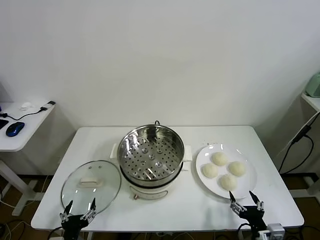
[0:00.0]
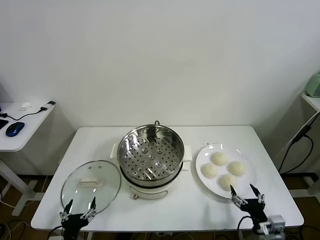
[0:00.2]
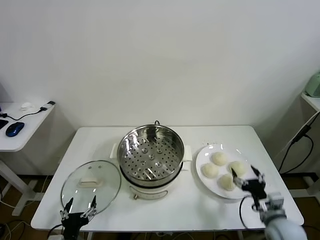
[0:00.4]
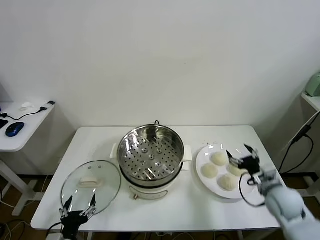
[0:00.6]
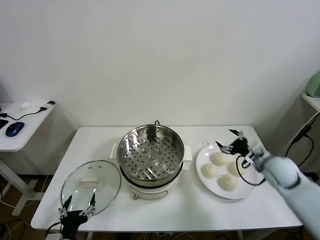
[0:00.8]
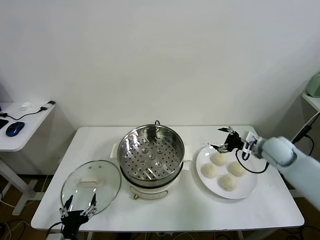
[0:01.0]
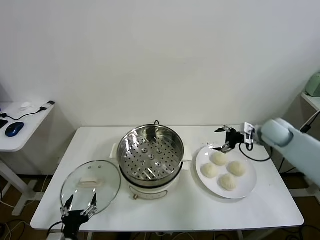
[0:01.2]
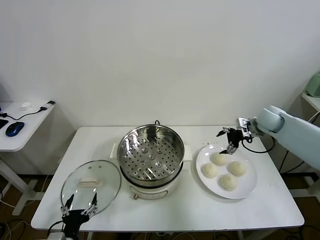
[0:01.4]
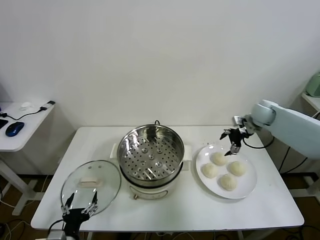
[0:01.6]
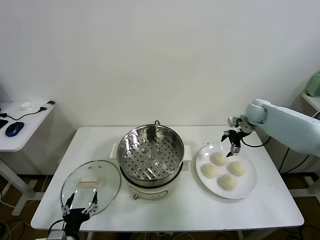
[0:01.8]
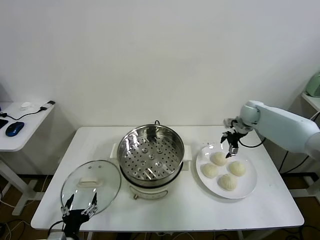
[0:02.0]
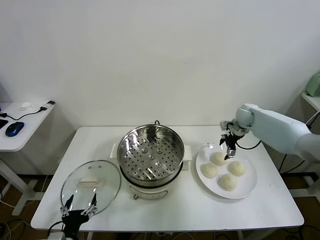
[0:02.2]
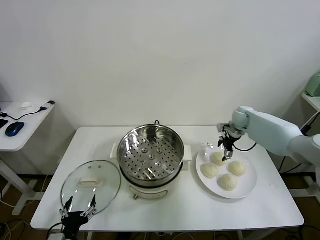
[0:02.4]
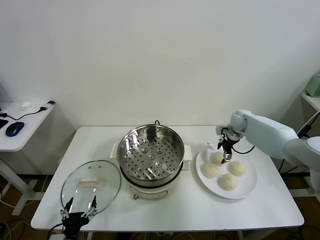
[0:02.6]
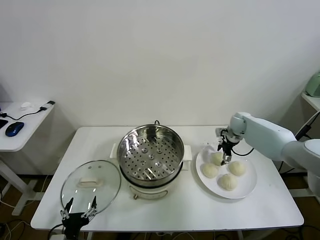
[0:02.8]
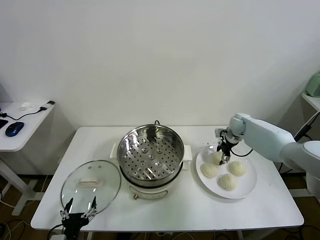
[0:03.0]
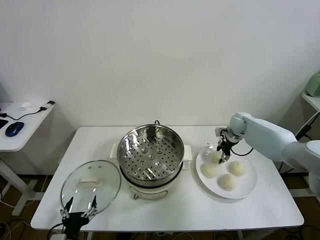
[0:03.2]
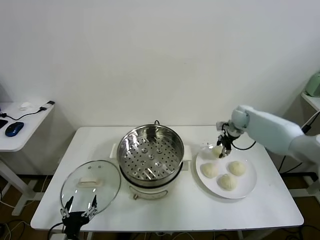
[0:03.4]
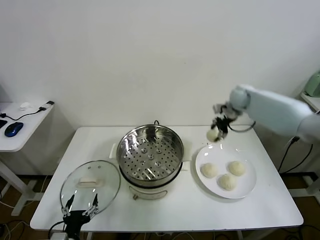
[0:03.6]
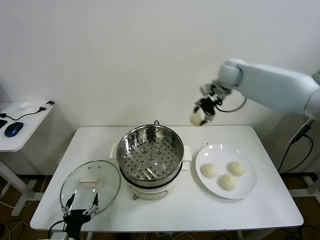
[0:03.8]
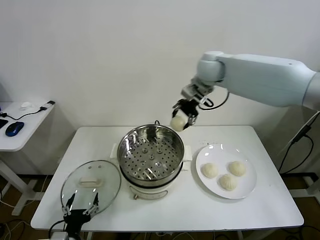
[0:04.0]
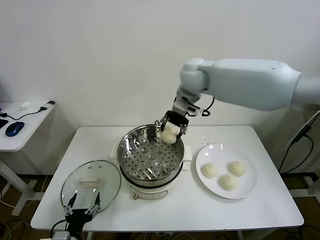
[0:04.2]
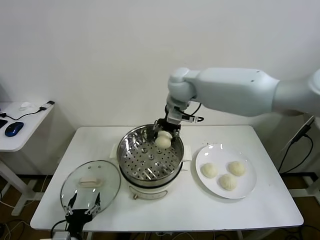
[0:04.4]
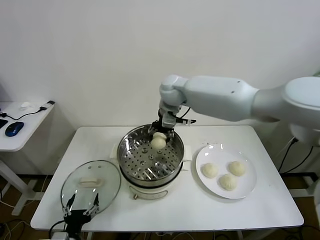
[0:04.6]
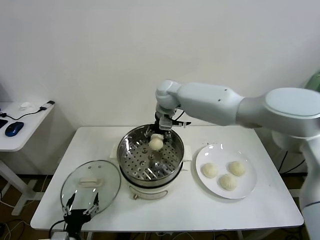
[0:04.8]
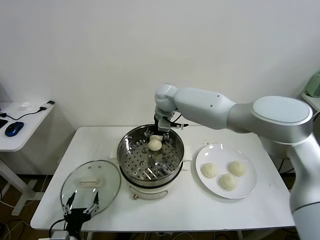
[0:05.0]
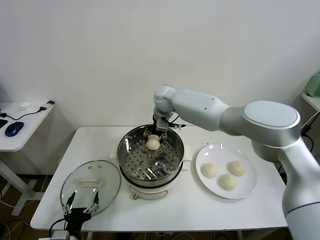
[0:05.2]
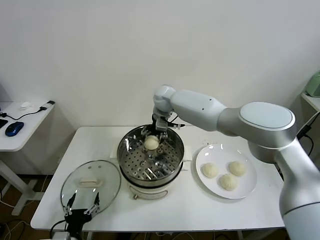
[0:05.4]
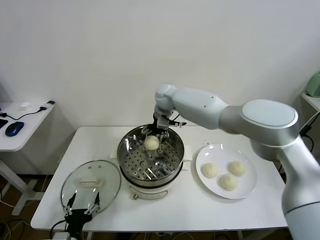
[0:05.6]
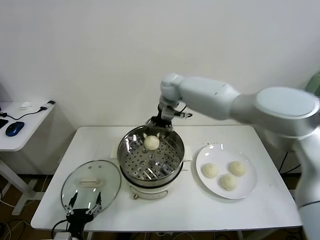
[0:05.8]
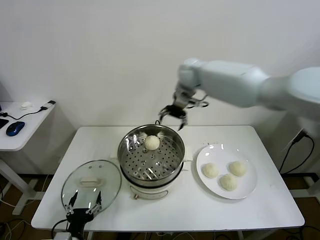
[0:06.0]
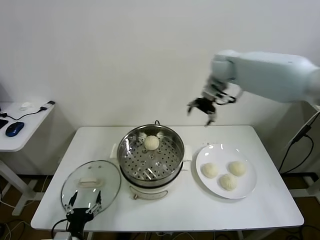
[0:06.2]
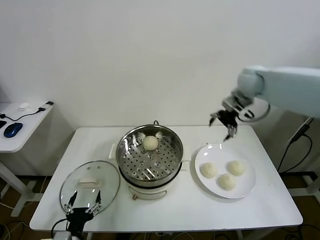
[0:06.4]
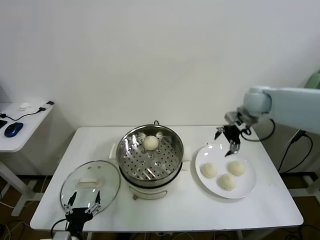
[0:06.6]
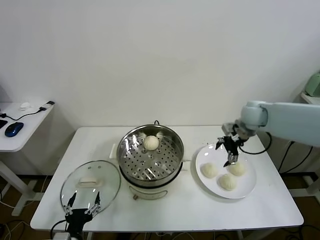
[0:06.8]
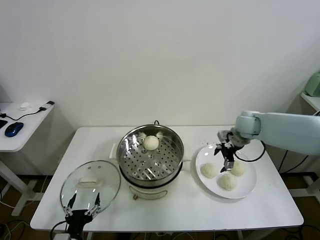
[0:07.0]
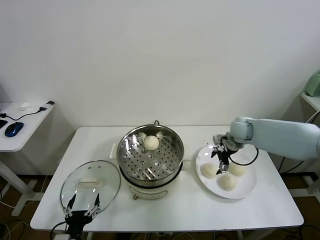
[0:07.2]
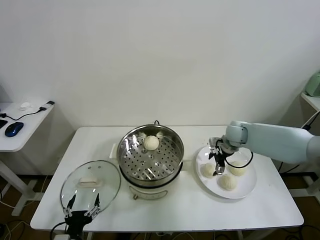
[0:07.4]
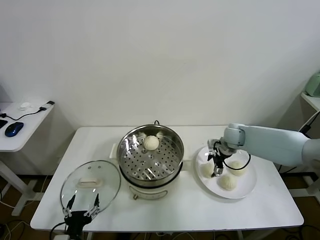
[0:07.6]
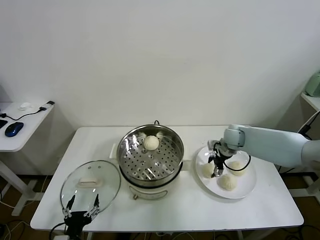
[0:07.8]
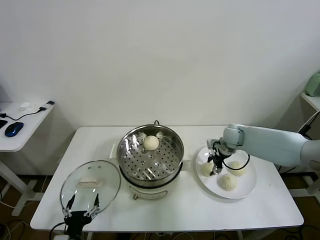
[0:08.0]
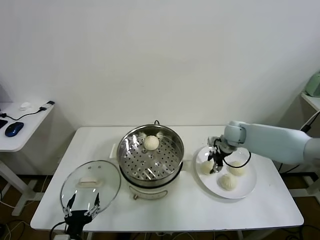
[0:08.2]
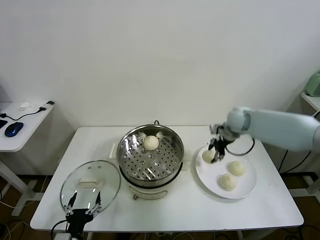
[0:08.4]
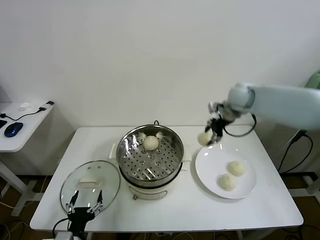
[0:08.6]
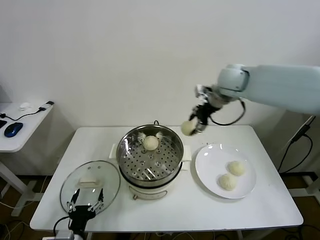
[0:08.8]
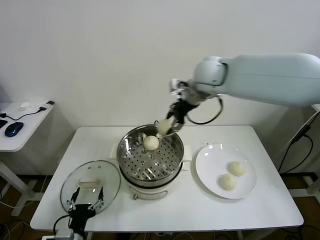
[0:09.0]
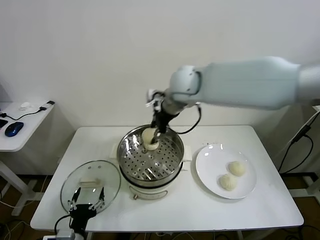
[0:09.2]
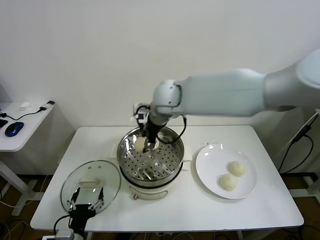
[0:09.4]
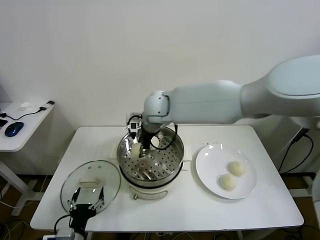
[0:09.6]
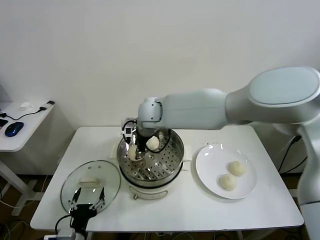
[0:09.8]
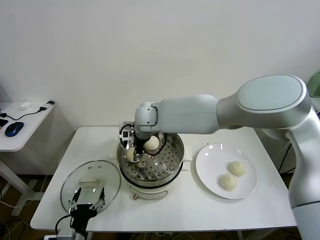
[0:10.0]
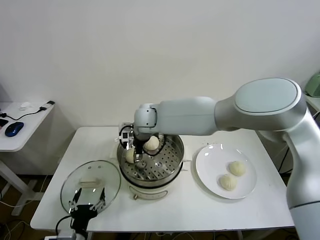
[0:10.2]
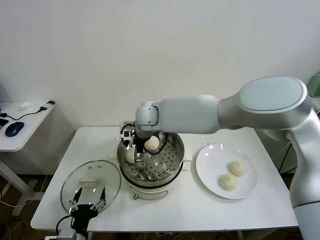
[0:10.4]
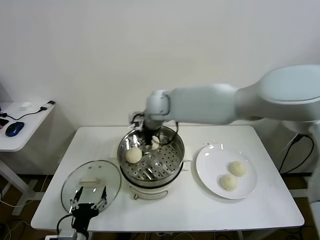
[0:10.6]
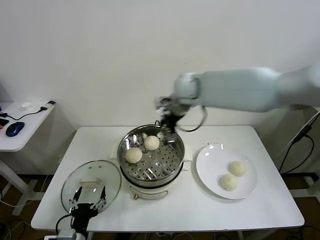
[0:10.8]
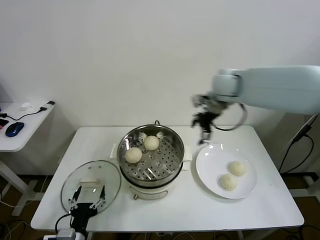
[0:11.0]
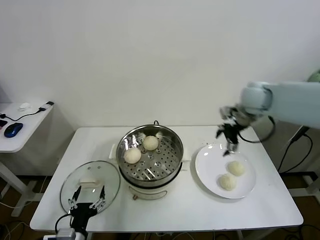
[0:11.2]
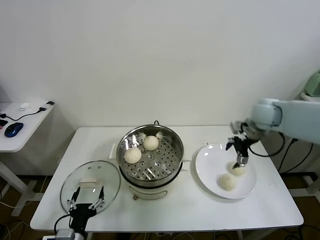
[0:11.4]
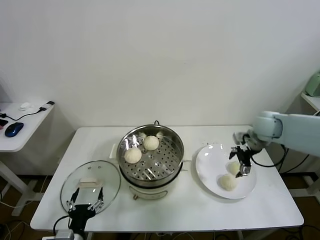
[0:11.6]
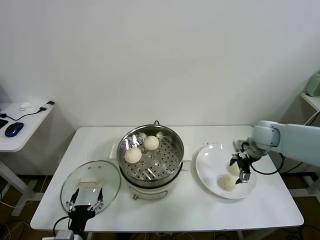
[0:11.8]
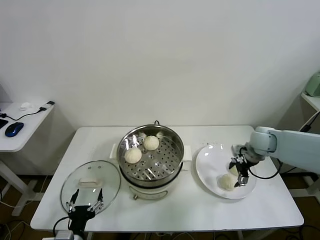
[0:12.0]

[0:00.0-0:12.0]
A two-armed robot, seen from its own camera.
Task of the whole recording: take steamed baozi put them in steamer.
Step, 0.0 to 2.8 s: Grasp the baozi in the plate with right gripper.
Step, 3.0 to 5.6 s: Place the baozi on the steamer with right gripper.
Step, 5.8 to 8.0 s: Grasp the baozi in the plate with right gripper.
Step, 8.2 to 10.4 s: Place the baozi on the steamer with right gripper.
1.6 to 3.0 s: The right gripper travels downward by some 10 cm, and closes its fingers.
3.0 to 4.4 s: The right gripper heads to the left and upward, covering some 35 cm.
4.4 to 6.0 s: The right gripper heads to the right and forward, covering some 10 cm, and opens up.
6.0 to 7.6 s: The right gripper heads downward and to the right, covering some 30 cm.
7.6 to 9.0 s: The right gripper moves upward and to the left, approximately 35 cm, and closes.
9.0 to 10.4 s: The right gripper travels to the left and downward by some 20 cm, and opens up.
10.4 to 12.0 s: The right gripper heads to the right, covering some 40 cm.

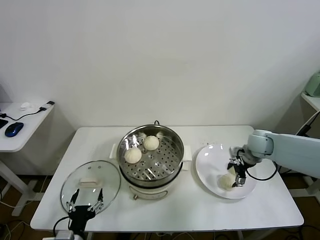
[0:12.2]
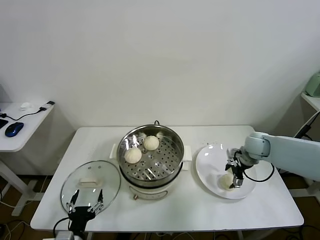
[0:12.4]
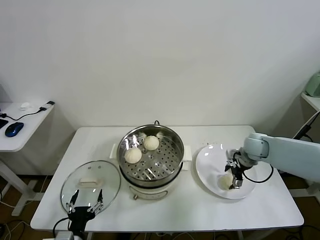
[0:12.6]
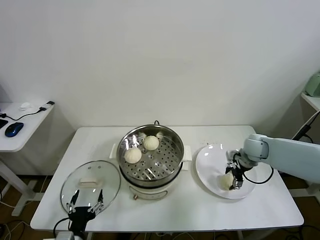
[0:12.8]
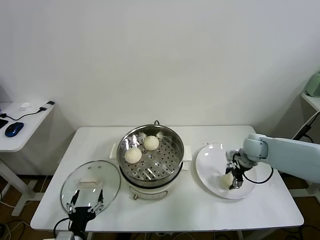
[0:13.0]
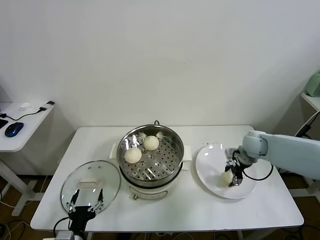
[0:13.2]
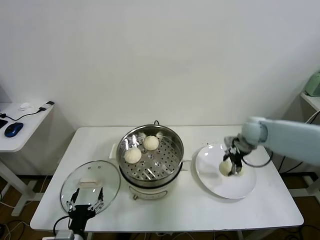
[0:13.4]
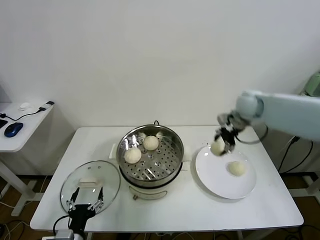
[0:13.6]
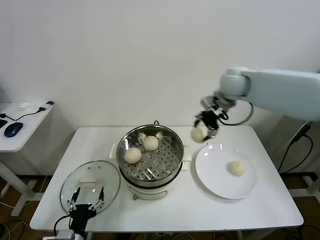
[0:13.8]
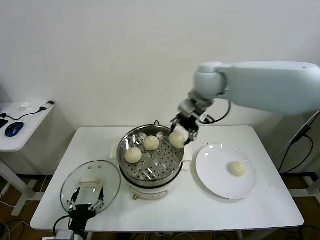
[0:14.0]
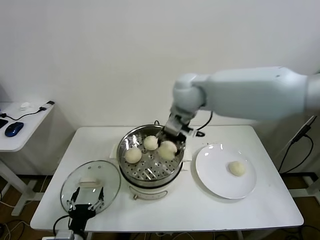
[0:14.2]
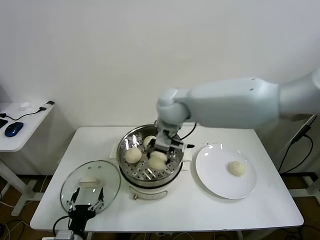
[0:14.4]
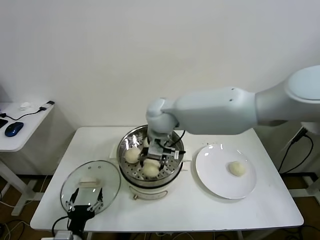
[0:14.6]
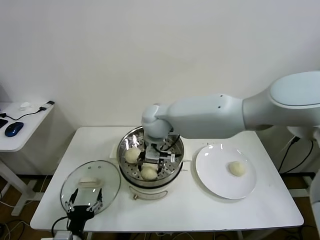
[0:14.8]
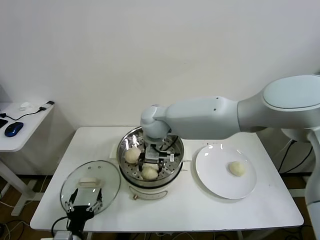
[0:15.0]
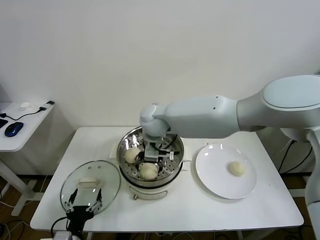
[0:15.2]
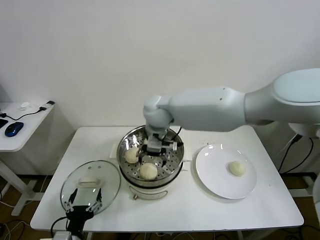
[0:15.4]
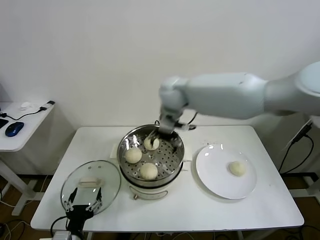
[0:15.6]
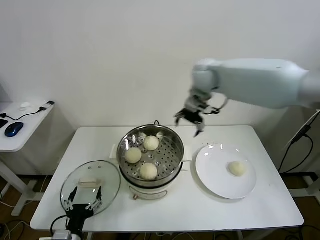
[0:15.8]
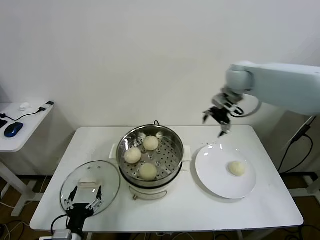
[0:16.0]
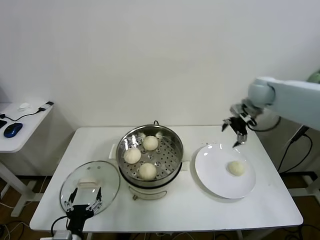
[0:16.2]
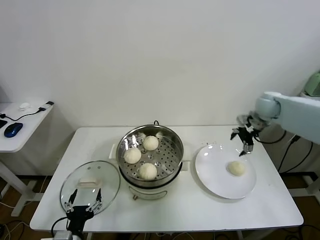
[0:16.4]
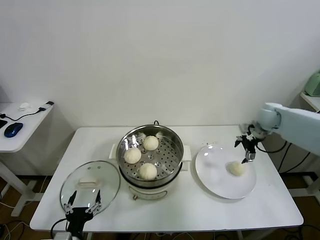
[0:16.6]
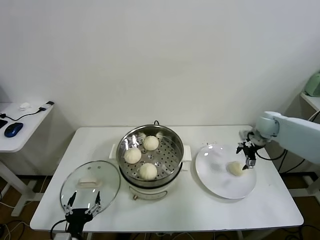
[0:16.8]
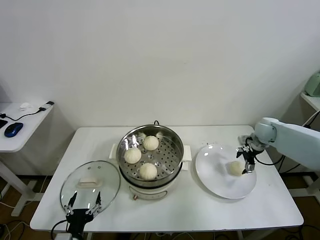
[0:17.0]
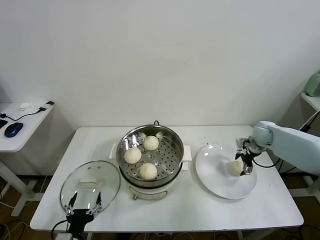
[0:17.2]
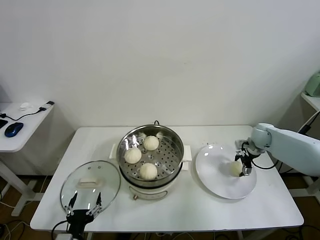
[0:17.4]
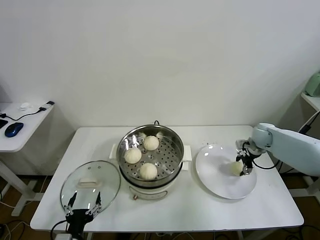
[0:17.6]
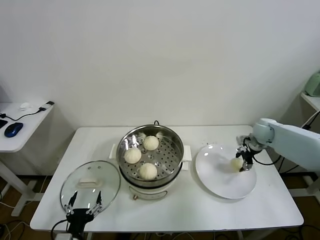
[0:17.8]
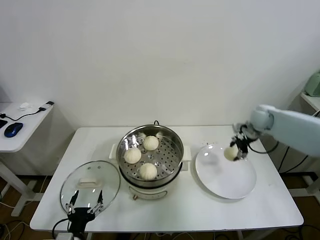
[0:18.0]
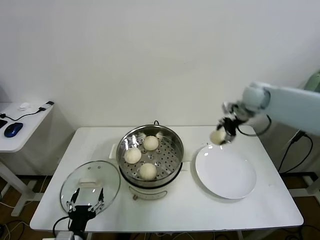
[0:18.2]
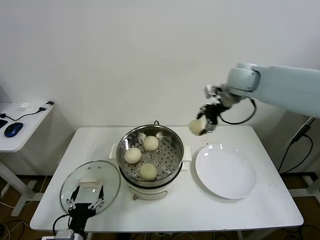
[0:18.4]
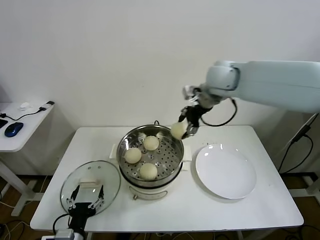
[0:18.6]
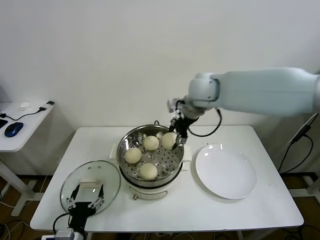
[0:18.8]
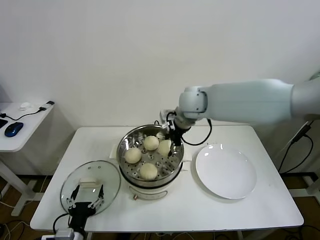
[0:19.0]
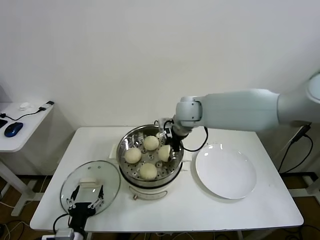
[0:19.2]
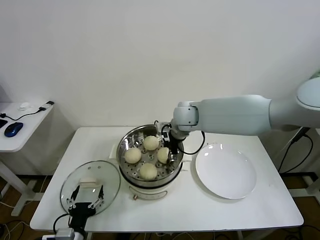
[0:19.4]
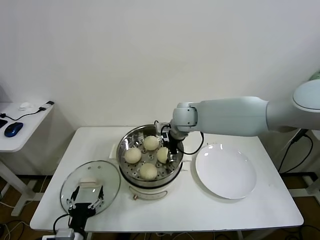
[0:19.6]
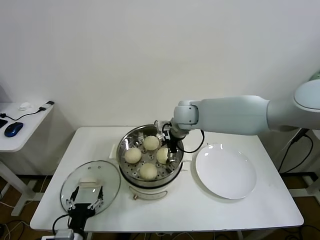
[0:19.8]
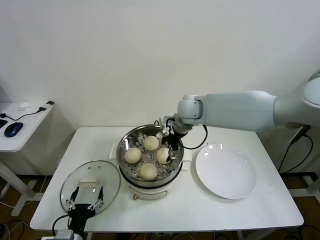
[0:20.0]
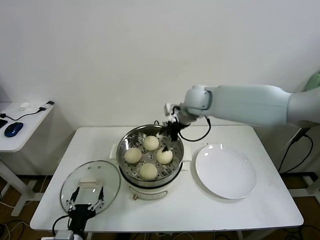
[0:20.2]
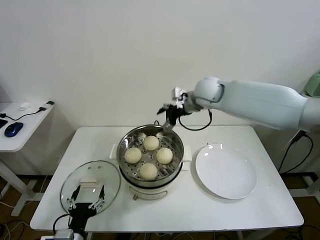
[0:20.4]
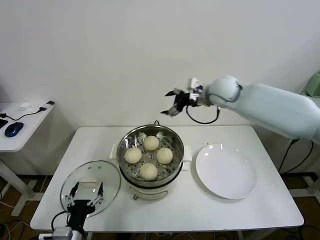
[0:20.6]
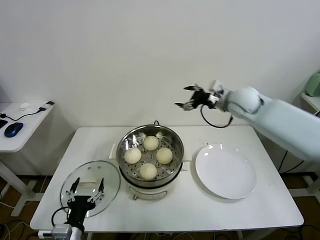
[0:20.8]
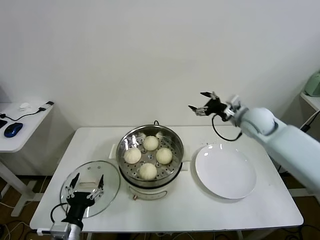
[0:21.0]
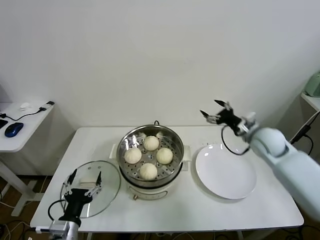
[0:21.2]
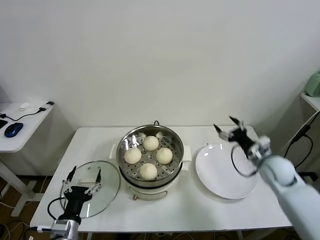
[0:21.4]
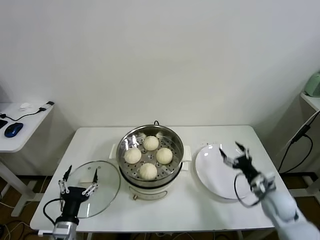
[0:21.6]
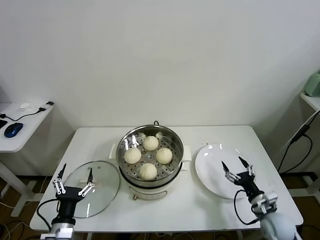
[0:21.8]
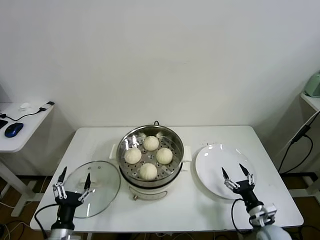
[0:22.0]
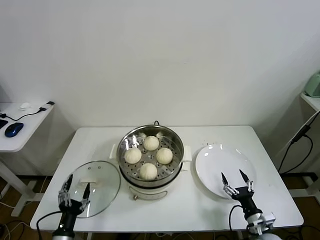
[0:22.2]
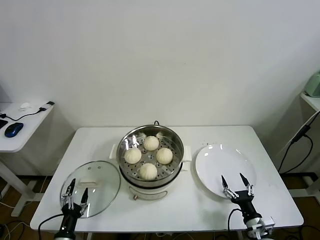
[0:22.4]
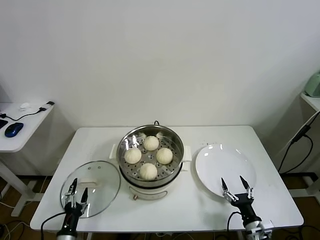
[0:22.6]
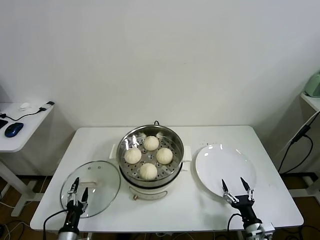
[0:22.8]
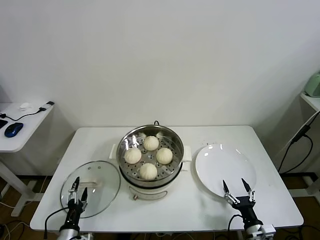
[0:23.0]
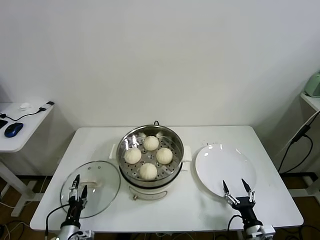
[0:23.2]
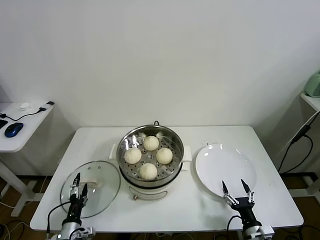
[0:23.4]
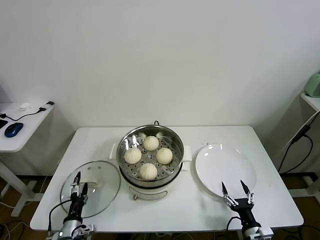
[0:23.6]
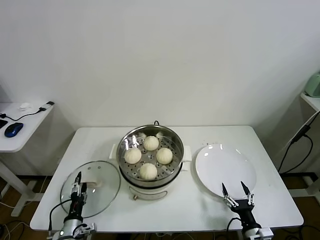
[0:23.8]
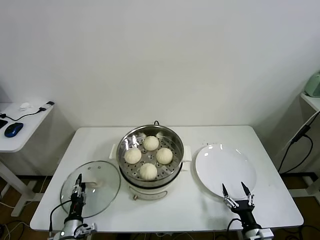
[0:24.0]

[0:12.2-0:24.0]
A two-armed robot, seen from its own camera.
Task of the whole recording: take steamed baozi put them in steamer.
Step, 13.2 to 15.2 s: Place the baozi on the steamer with right gripper.
Step, 15.6 to 17.4 s: Grasp the baozi in the plate with right gripper.
Step, 17.6 to 19.8 s: Place the baozi on the steamer with right gripper.
12.2 to 13.6 s: The right gripper is displaced upward, to the left and forward by roughly 20 cm, and closes.
13.6 to 15.2 s: The right gripper goes about 30 cm to the left, and opens.
15.2 to 16.6 s: The right gripper heads to the right, covering some 40 cm.
16.6 to 18.2 s: The right gripper goes about 15 cm upward and to the left, and closes up.
18.2 to 19.6 s: The right gripper shifts some 25 cm to the left.
19.6 to 21.0 s: The right gripper heads to the right, covering approximately 25 cm, and opens.
21.0 to 22.6 s: The right gripper travels backward and downward by approximately 40 cm. The left gripper travels downward and to the left by roughly 15 cm.
22.6 to 24.0 s: The left gripper goes approximately 5 cm forward, and closes up.
